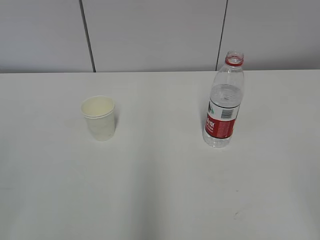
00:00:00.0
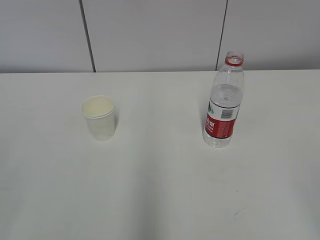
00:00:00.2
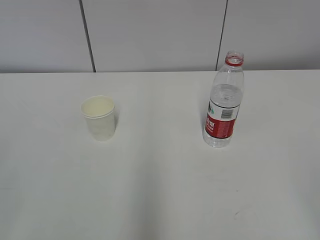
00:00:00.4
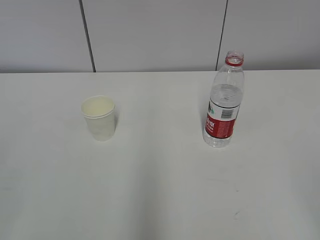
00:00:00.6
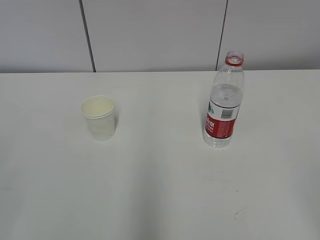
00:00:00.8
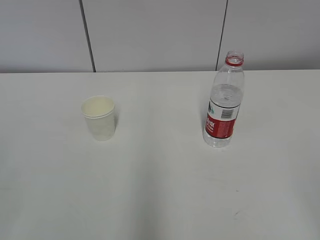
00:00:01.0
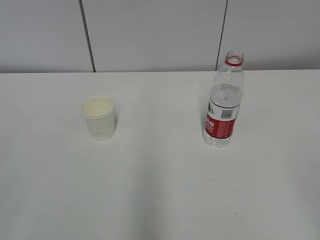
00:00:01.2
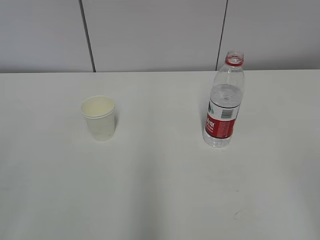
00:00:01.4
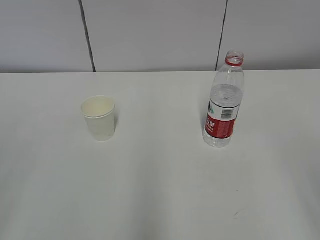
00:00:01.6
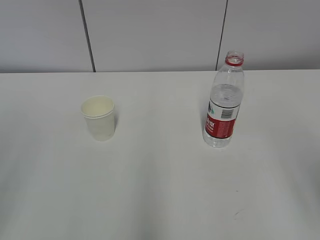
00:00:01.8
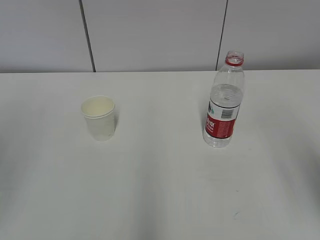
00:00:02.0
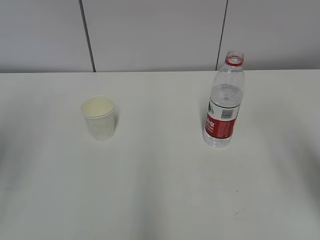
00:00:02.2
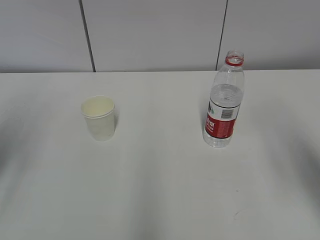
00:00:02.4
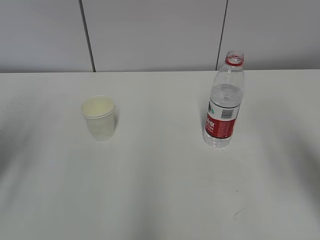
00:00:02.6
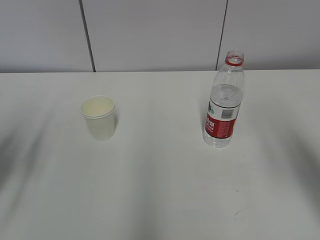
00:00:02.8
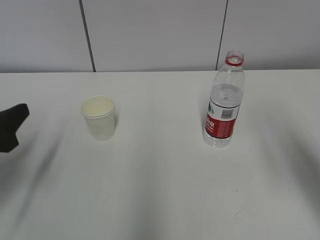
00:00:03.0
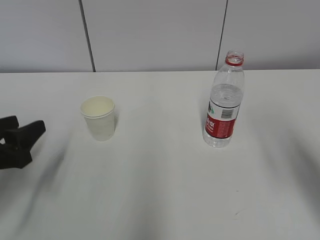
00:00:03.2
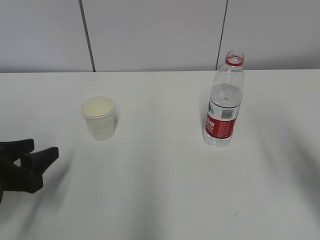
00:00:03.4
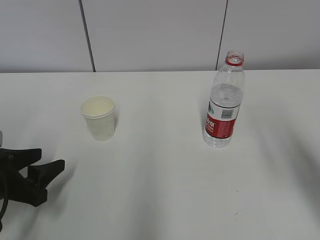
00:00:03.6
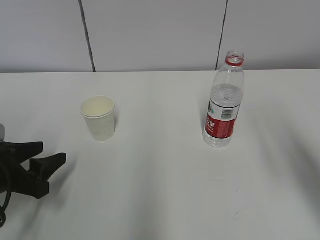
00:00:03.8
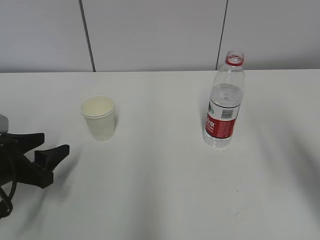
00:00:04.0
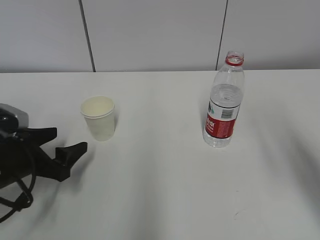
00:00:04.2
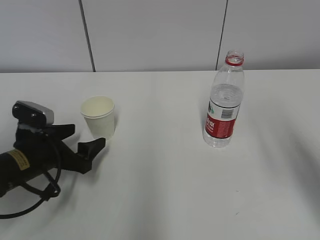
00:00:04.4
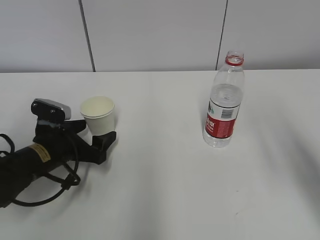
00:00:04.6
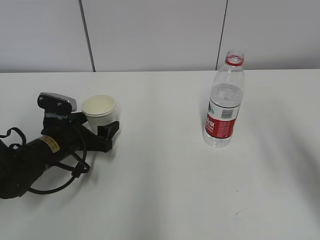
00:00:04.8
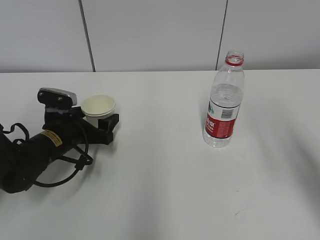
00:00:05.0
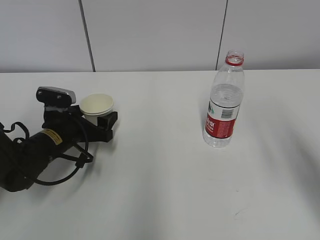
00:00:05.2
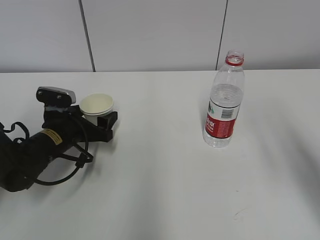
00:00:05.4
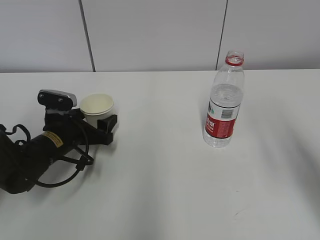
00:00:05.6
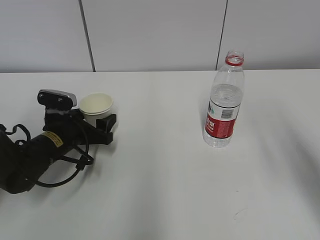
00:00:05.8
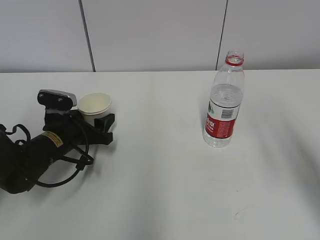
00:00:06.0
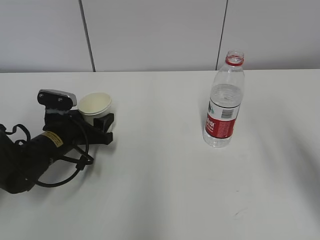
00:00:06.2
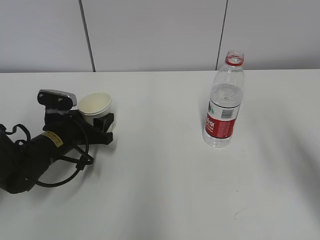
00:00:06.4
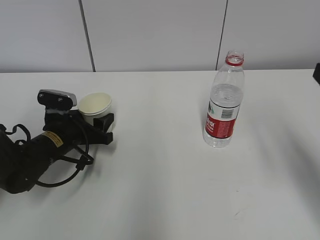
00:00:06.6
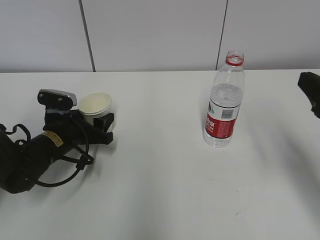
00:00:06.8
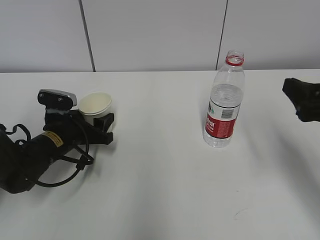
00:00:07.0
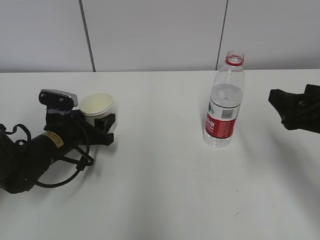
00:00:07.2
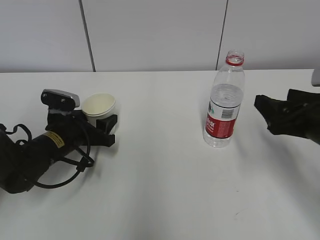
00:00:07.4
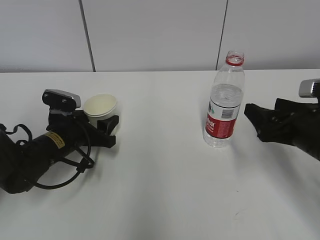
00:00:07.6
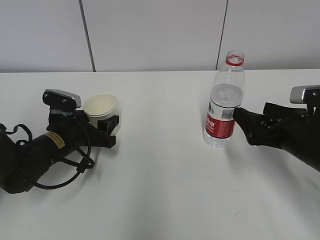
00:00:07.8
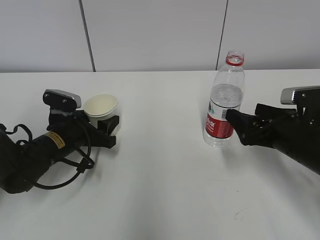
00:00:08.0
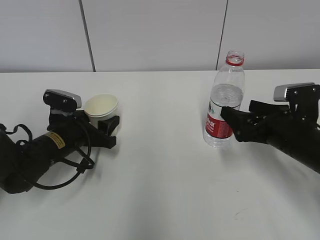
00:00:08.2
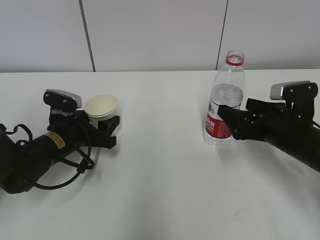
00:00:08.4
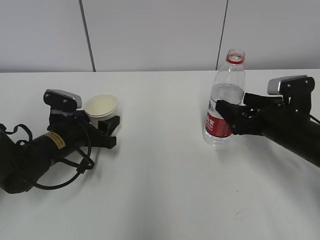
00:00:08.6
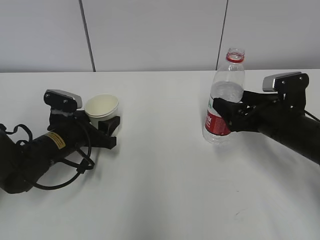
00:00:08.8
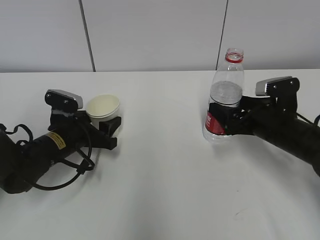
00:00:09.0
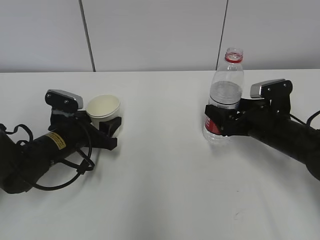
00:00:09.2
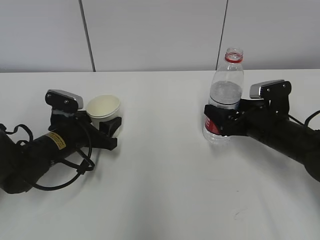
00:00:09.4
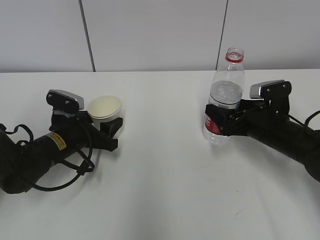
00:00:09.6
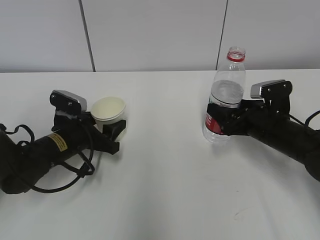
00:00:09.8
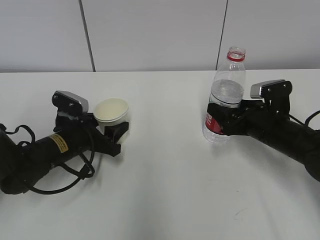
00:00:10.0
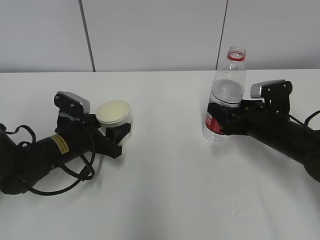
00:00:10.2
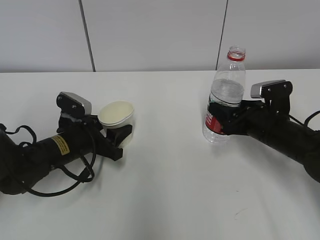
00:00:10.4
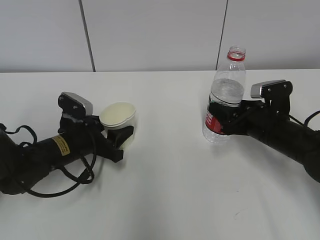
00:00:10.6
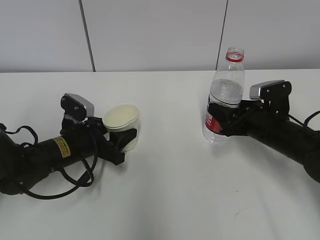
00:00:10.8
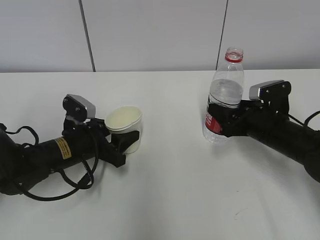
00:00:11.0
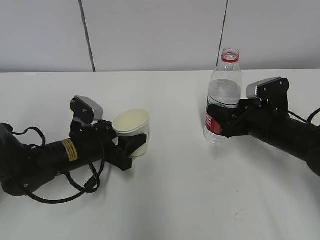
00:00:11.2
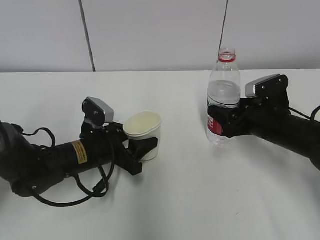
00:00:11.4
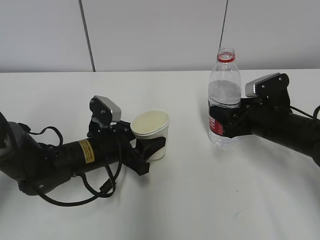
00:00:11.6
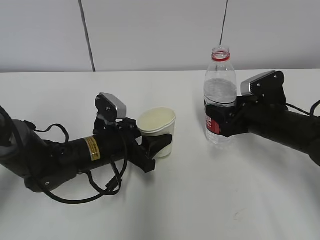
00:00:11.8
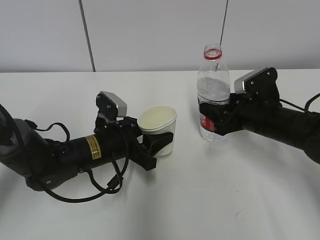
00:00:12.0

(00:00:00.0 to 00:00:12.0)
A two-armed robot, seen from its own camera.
Step, 00:00:00.0 - 00:00:08.0: Grab the paper cup with the left hand.
Step, 00:00:08.2 - 00:00:09.2: Grab the water bottle with the right hand.
00:00:01.6 - 00:00:03.0: The right gripper moves forward, about 15 cm, while the left gripper is displaced forward and downward by about 25 cm.
00:00:03.0 - 00:00:04.4: The left gripper heads downward, forward and to the right, covering about 15 cm, and opens up.
00:00:04.4 - 00:00:06.0: The left gripper goes approximately 5 cm forward, and closes up.
00:00:06.0 - 00:00:07.6: The right gripper is displaced downward and forward by some 15 cm.
00:00:07.6 - 00:00:09.0: The right gripper heads forward, covering roughly 5 cm.
00:00:09.0 - 00:00:10.4: The right gripper closes up.
00:00:10.4 - 00:00:12.0: The left gripper is displaced to the right by approximately 5 cm.

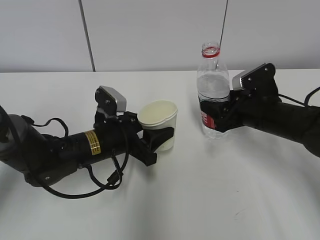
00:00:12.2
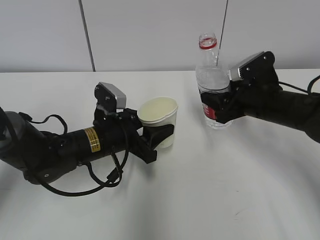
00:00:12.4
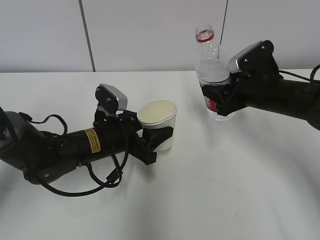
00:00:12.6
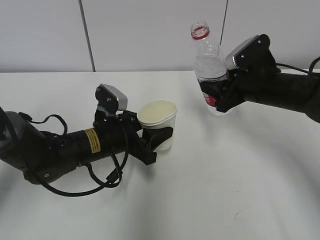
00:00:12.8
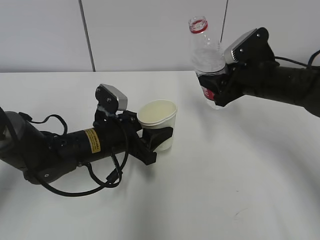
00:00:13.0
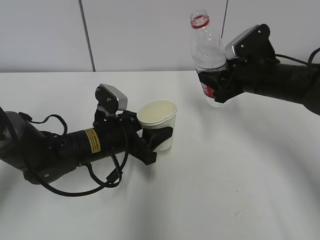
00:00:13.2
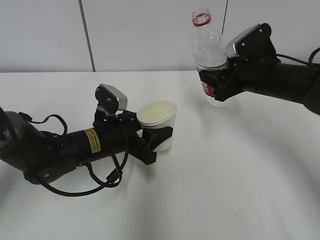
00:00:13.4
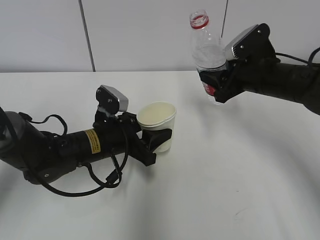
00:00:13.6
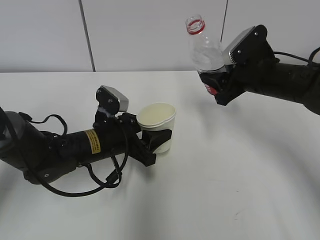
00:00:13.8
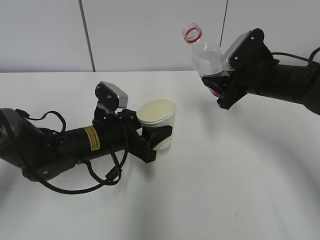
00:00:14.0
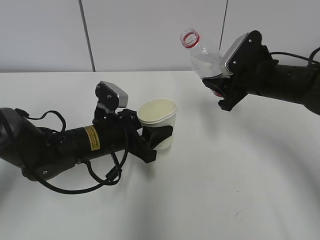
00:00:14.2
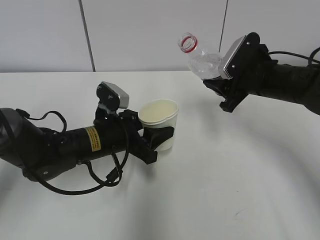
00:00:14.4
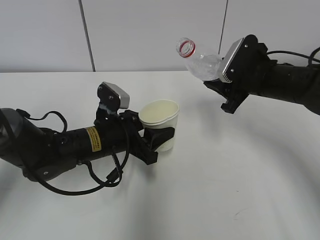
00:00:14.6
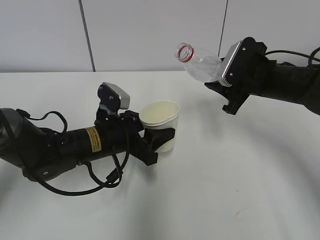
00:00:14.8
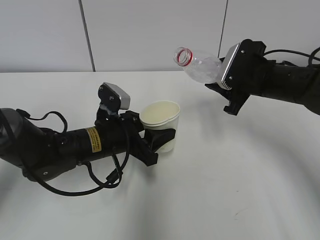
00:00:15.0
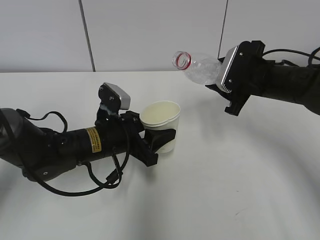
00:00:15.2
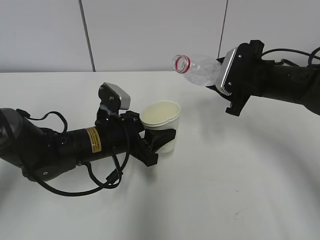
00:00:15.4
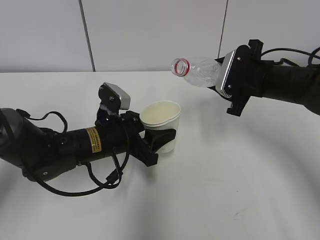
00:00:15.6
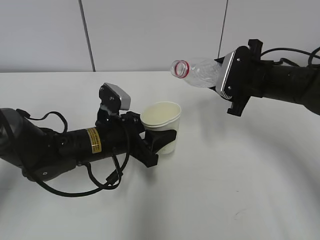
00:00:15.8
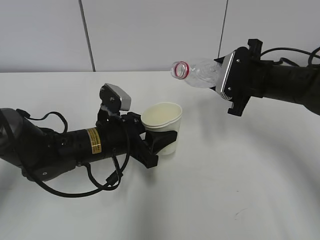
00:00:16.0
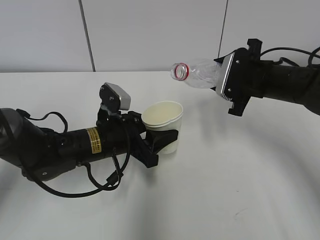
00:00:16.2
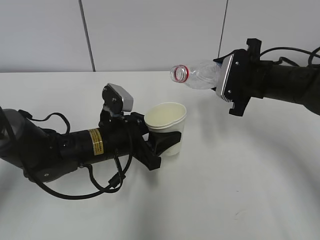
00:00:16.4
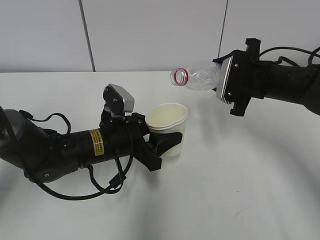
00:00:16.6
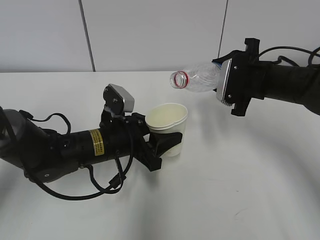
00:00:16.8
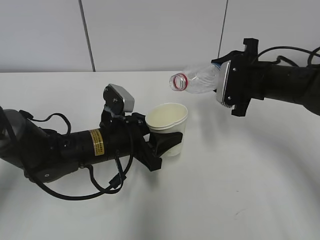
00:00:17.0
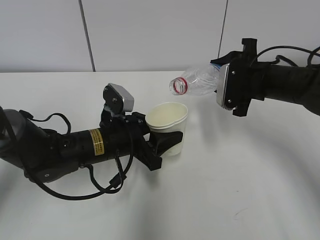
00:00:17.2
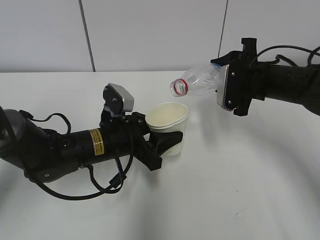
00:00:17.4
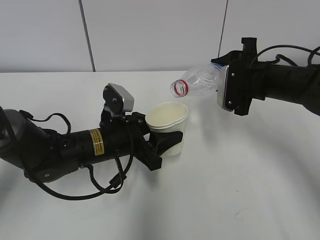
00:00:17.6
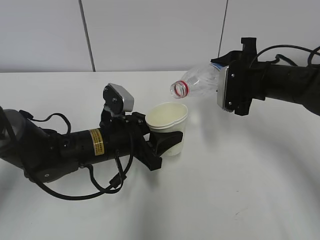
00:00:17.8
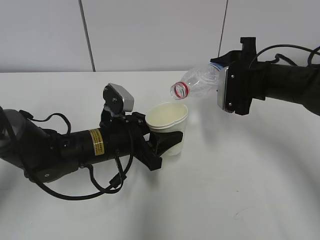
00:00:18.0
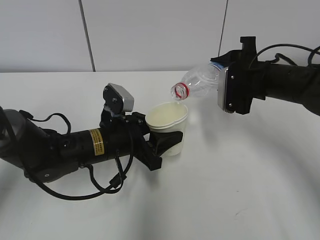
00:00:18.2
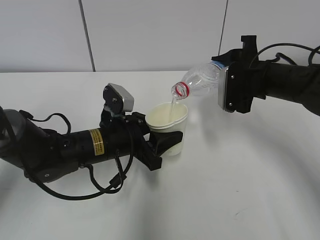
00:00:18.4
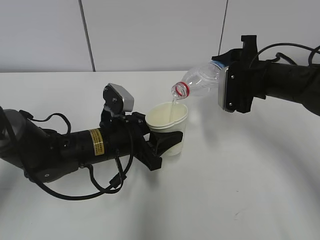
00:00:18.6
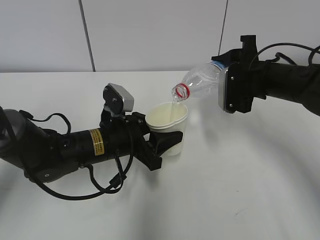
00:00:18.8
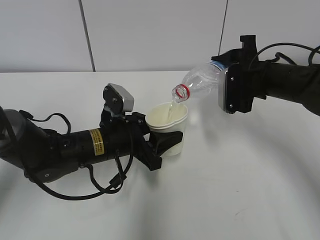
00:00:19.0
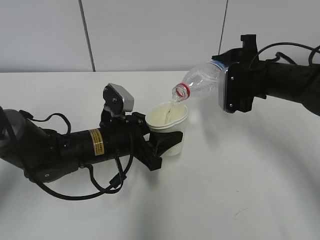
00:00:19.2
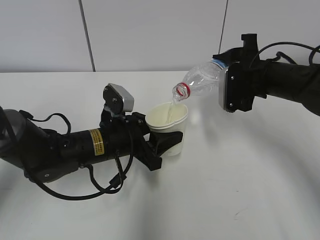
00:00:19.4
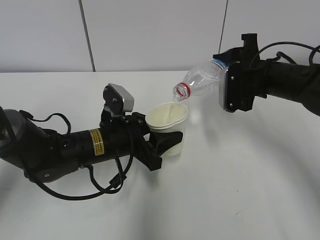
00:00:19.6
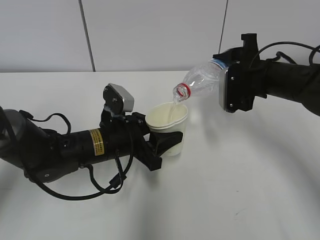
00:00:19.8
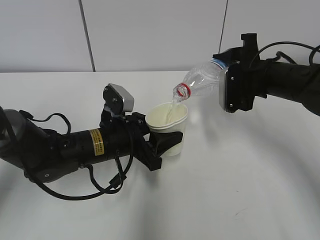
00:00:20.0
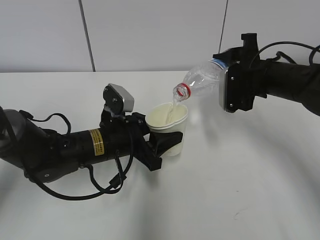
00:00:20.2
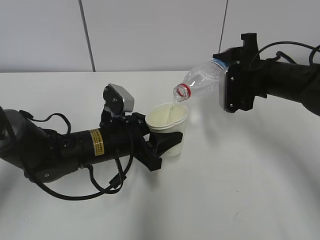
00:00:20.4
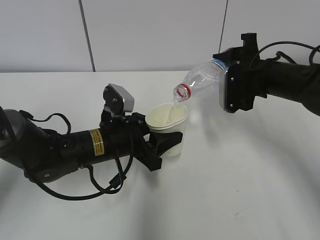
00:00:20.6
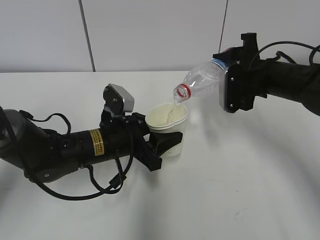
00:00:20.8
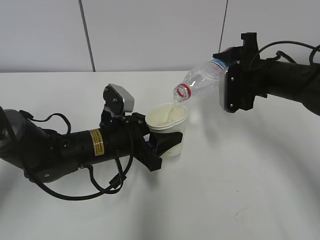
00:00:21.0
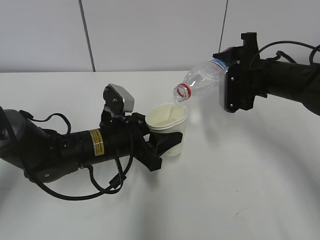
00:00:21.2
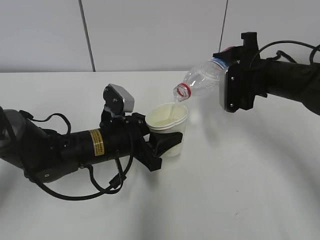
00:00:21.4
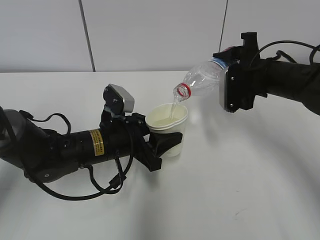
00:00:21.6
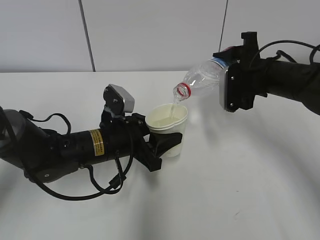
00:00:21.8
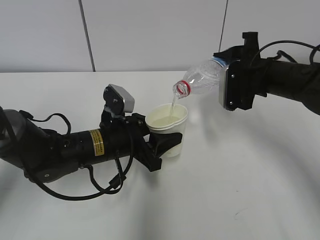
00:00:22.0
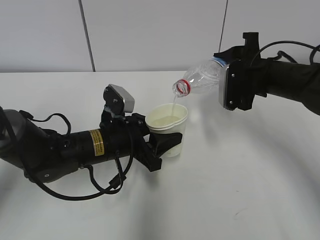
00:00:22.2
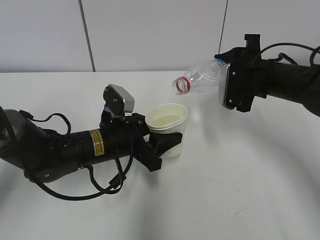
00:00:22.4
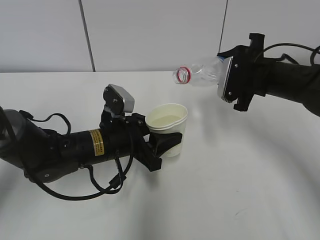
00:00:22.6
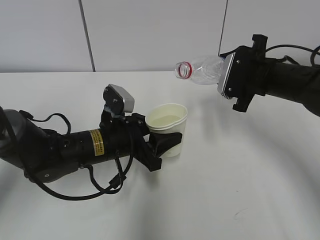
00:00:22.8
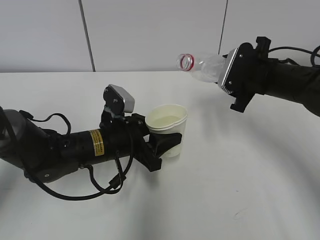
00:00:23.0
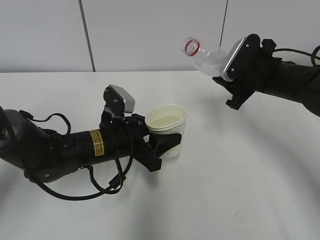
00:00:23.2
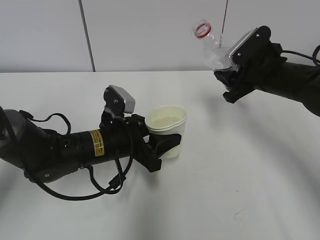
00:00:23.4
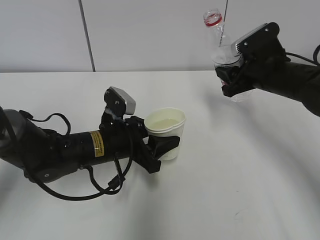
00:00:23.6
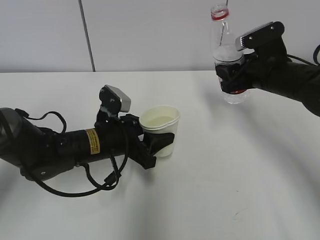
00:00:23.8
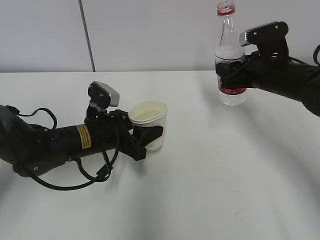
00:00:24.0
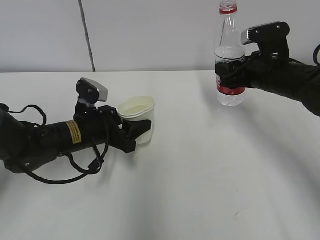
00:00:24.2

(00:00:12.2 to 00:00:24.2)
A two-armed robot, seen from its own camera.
Step, 00:00:12.2 - 00:00:15.2: Lift the paper cup with the left hand.
Step, 00:00:15.4 - 00:00:18.6: Fill water with the left hand.
Step, 00:00:15.4 - 00:00:18.6: Pour water with the right hand.
00:00:12.2 - 00:00:13.8: The right gripper travels upward by roughly 5 cm.
00:00:15.2 - 00:00:16.6: The grippers make only small movements.
00:00:16.6 - 00:00:18.2: The grippers make only small movements.
00:00:18.2 - 00:00:19.8: Neither gripper changes place.
00:00:19.8 - 00:00:21.2: The two grippers keep their place.
00:00:21.2 - 00:00:22.6: The grippers move only a little.
00:00:22.6 - 00:00:24.2: The left gripper heads to the left, covering some 5 cm.
